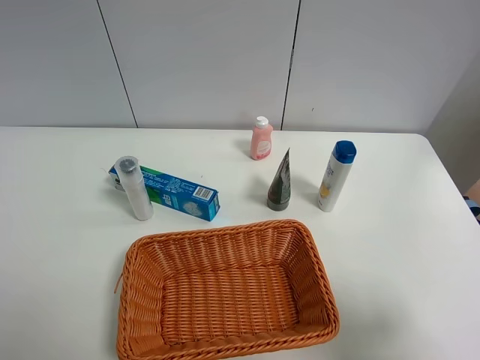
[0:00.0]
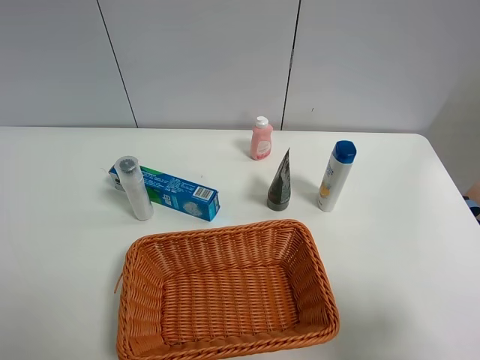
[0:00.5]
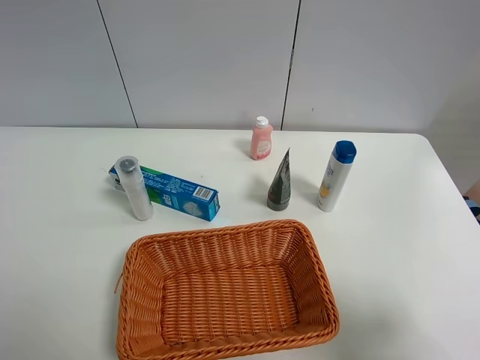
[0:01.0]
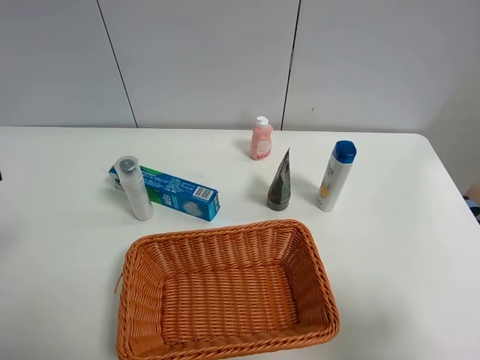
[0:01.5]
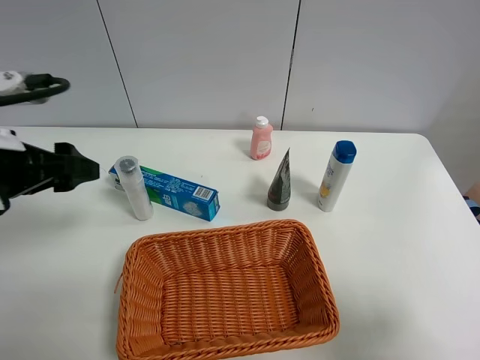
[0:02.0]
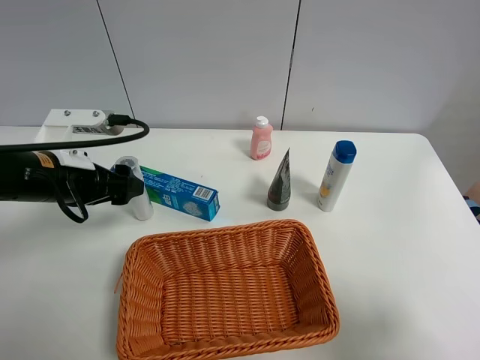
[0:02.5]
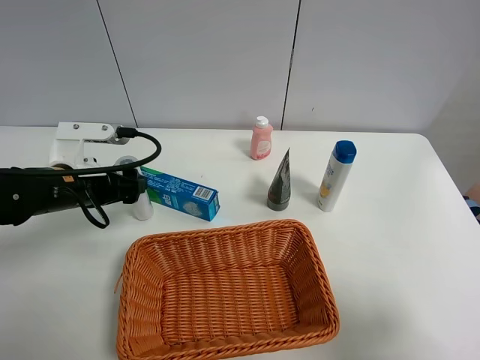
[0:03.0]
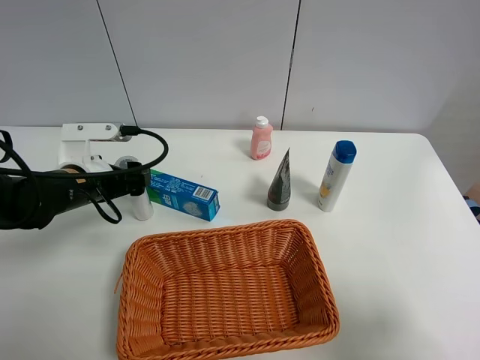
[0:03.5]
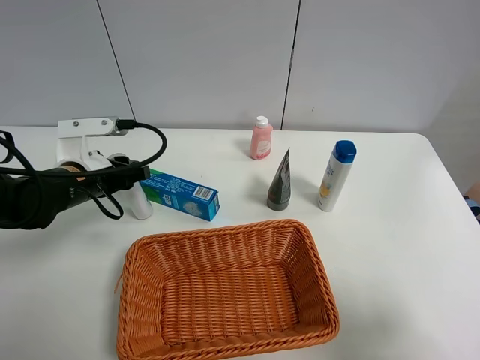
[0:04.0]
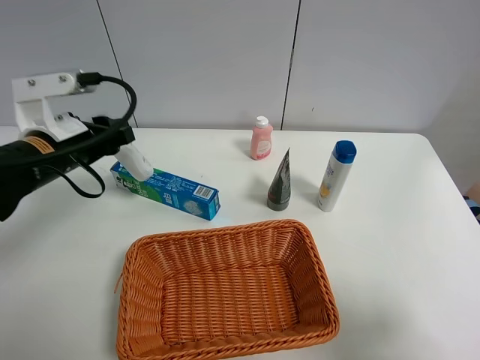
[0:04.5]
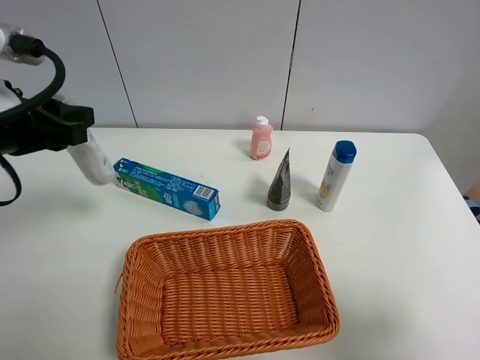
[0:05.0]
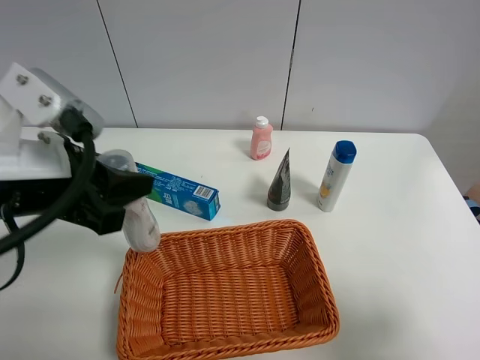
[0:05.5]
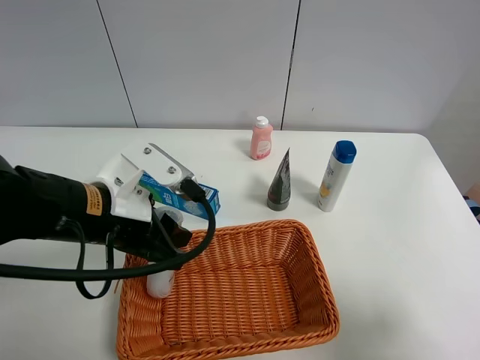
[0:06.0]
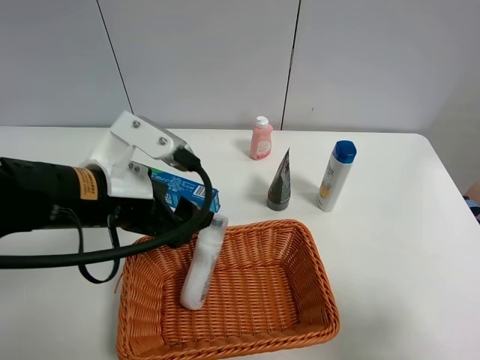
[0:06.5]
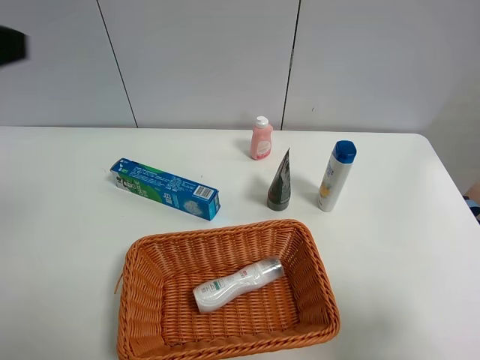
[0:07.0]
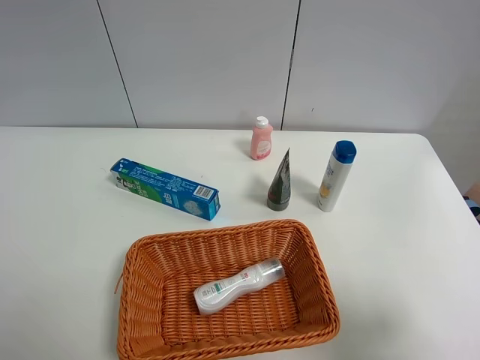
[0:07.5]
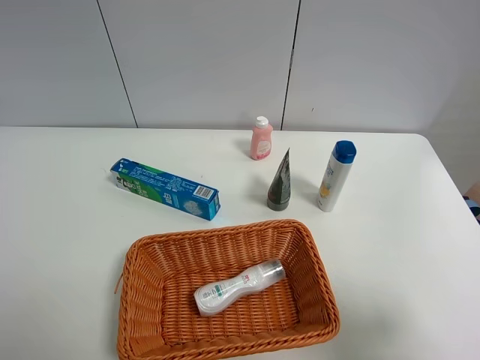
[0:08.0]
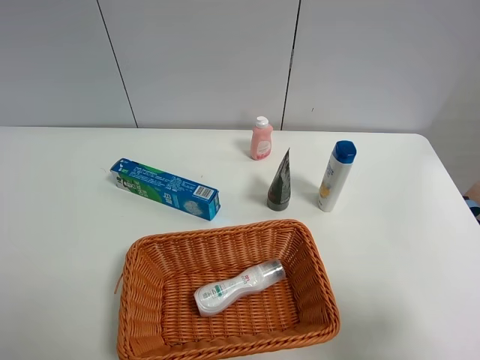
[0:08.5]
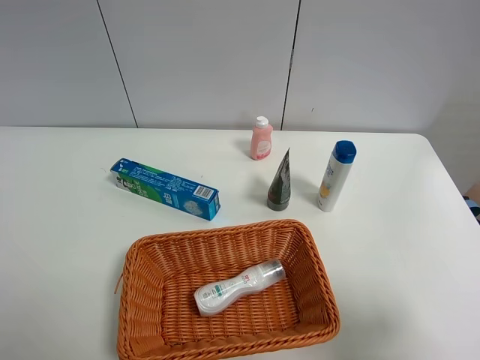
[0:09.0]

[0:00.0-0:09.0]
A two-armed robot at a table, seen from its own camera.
Task of the whole recording: Place the object closest to the toothpaste in the basket.
Step, 0:00.0 to 0:04.0: Grasp the cleaning agent with left gripper.
Step, 0:04.5 to 0:06.5: Place the cleaning agent in the basket with left gripper.
0:00.0 to 0:02.0: The left gripper moves forward, roughly 20 cm.
0:02.0 to 0:04.5: The left gripper shifts roughly 5 cm forward, moves some 10 cm downward and comes back, and closes its fingers.
0:04.5 to 0:07.0: The left gripper swings up and down, some 20 cm each way, with 2 reversals, and opens up.
0:07.0 to 0:09.0: The left gripper travels downward and backward by some 20 cm.
